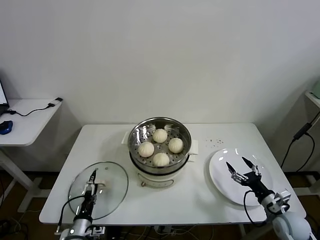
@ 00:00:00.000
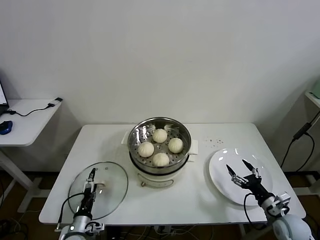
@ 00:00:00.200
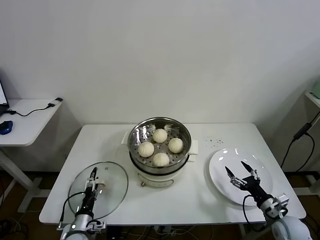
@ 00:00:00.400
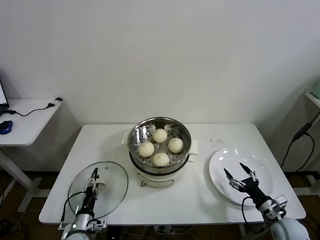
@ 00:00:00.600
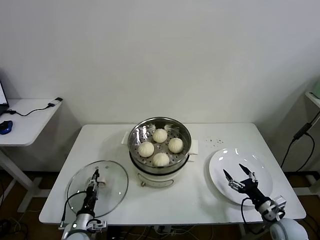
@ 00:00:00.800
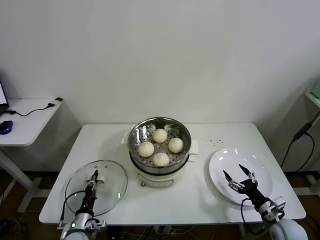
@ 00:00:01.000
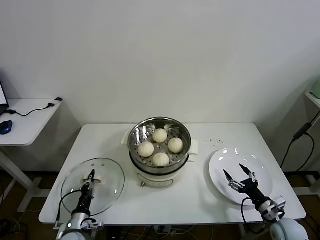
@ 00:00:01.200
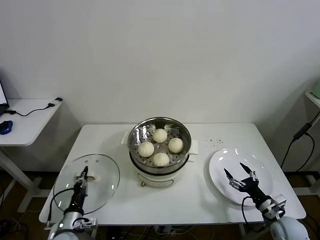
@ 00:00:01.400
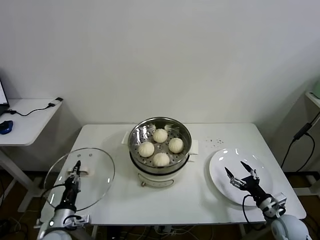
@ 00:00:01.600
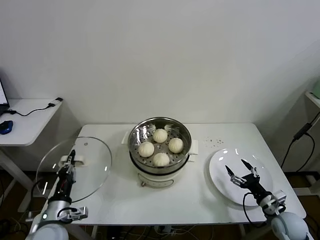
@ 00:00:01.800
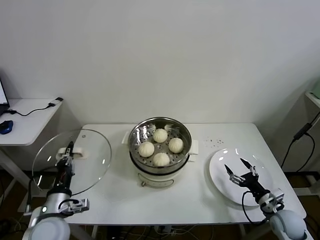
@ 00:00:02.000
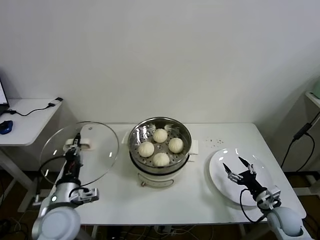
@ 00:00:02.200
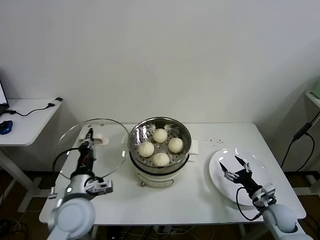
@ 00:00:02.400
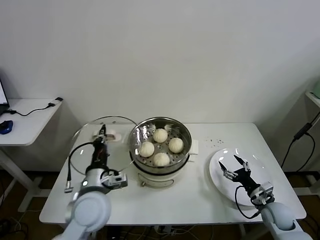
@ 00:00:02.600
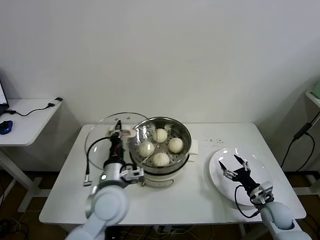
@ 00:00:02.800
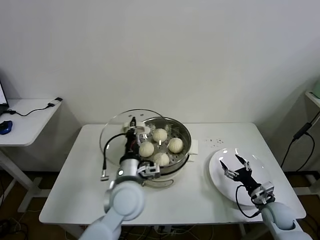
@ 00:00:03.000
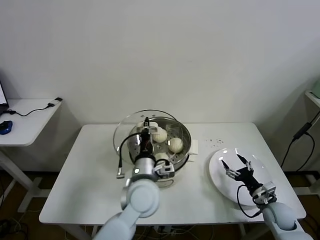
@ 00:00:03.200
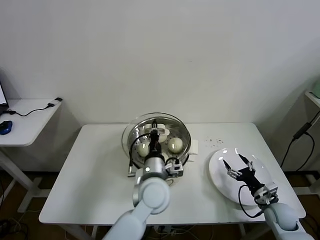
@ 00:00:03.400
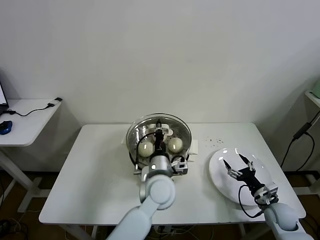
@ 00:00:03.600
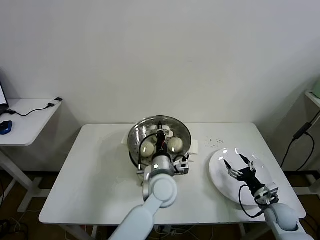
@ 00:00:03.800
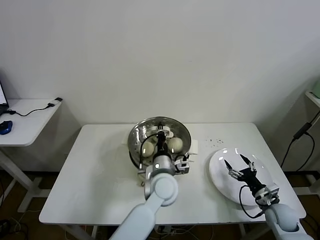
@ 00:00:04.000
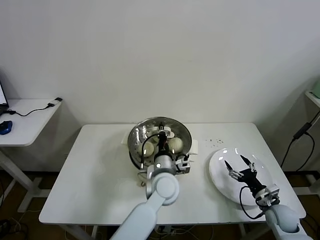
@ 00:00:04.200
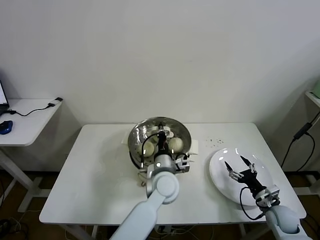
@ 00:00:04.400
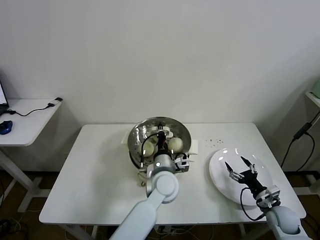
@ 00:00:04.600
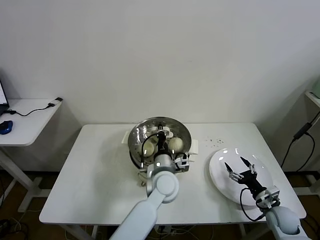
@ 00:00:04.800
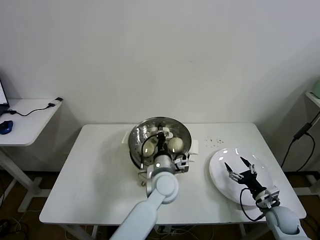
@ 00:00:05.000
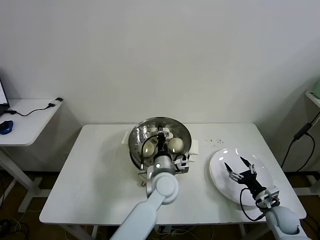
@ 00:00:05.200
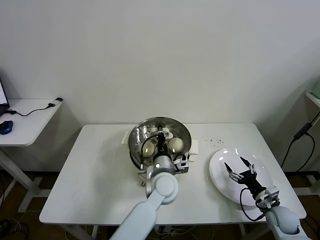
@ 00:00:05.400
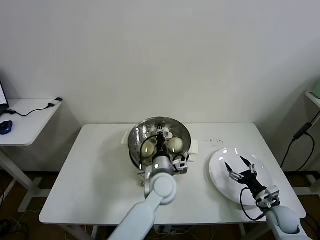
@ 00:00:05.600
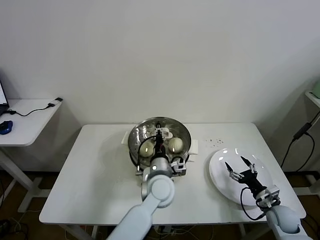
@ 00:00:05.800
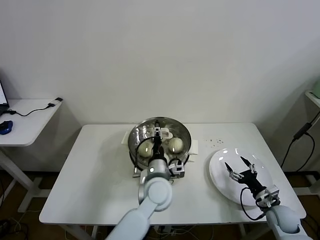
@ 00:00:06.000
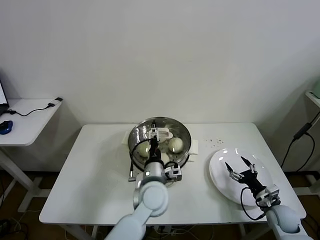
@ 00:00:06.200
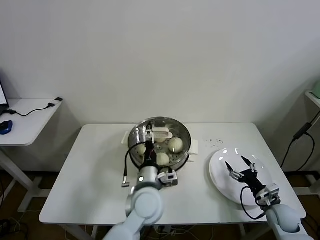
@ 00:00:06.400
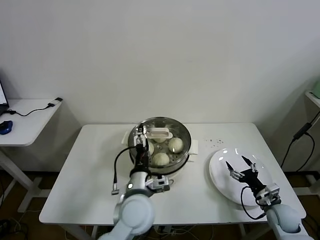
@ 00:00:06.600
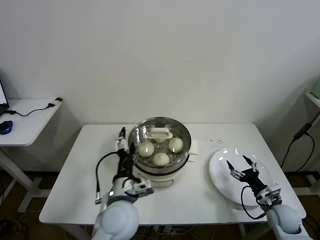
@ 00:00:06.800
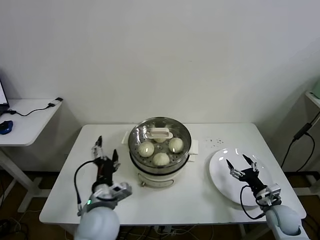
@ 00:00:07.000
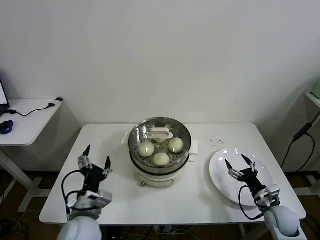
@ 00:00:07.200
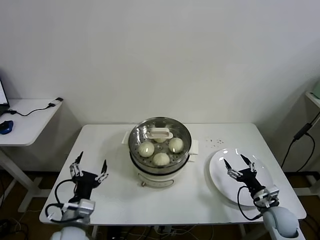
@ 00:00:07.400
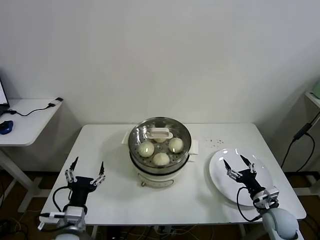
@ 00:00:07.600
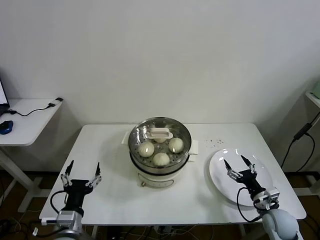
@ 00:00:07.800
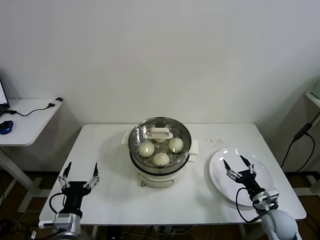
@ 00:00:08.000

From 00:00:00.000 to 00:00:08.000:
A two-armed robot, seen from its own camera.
Task of the whole recording: take steamed baozi put them in steamer then cover it.
Step, from 00:00:01.400 to 00:00:06.000: Place the pot lid on the steamer with left gripper.
From 00:00:00.000 to 00:00:01.600: The left gripper is displaced upward by roughly 5 cm, and closes its fingers.
From 00:00:01.600 to 00:00:03.200: The left gripper travels to the right and upward by about 30 cm.
From 00:00:03.200 to 00:00:04.800: The left gripper moves to the right, downward and forward, roughly 10 cm.
From 00:00:04.800 to 00:00:06.400: The left gripper shifts about 5 cm backward, and opens its fingers.
From 00:00:06.400 to 00:00:08.000: The left gripper moves to the left and backward, about 25 cm.
